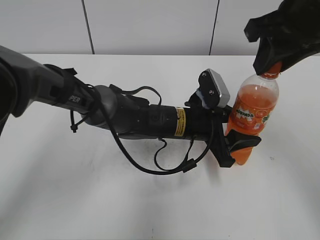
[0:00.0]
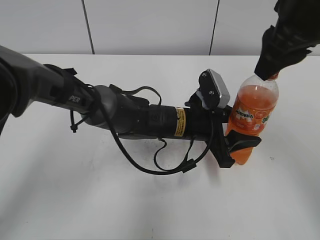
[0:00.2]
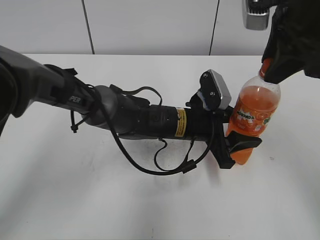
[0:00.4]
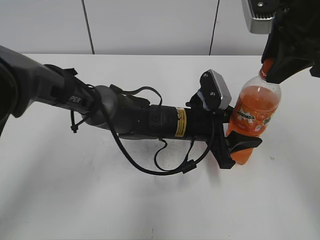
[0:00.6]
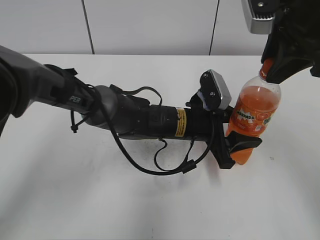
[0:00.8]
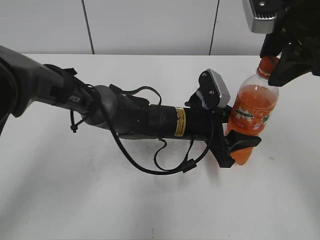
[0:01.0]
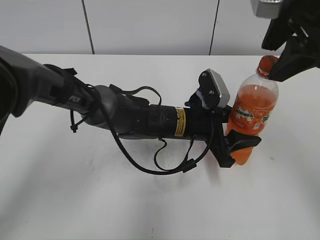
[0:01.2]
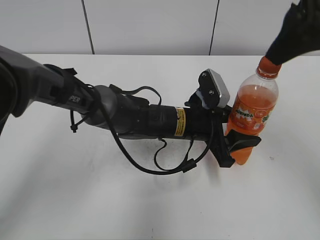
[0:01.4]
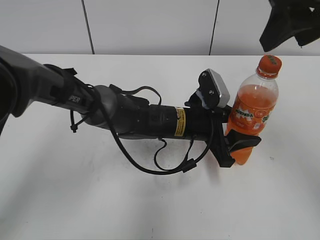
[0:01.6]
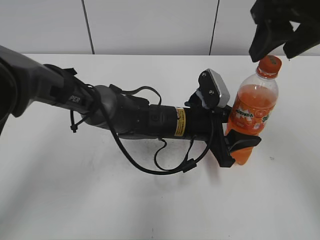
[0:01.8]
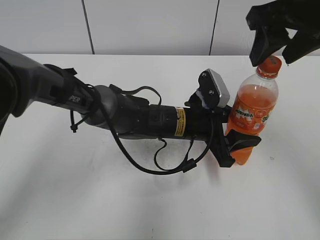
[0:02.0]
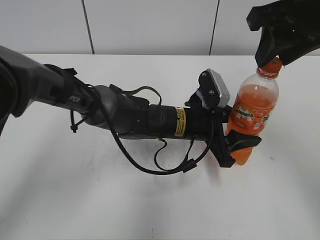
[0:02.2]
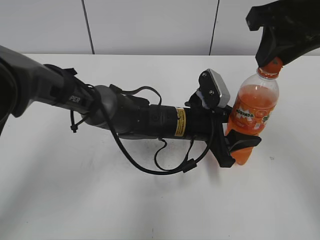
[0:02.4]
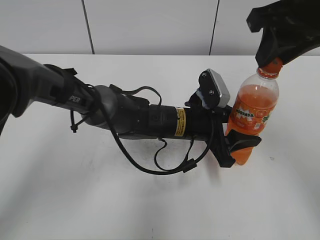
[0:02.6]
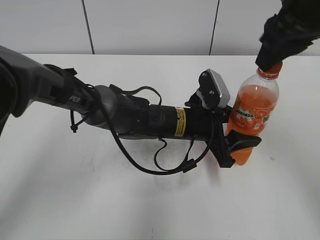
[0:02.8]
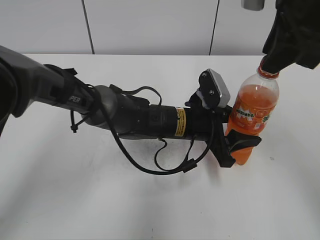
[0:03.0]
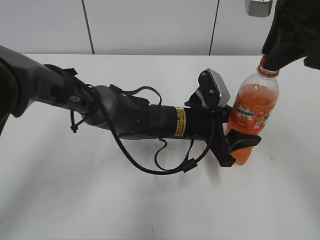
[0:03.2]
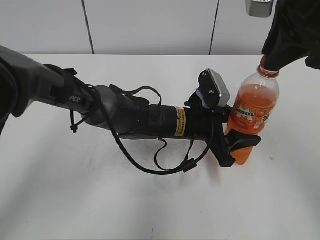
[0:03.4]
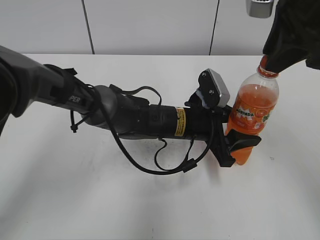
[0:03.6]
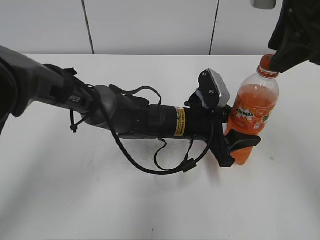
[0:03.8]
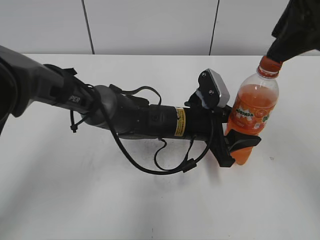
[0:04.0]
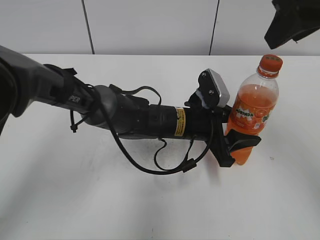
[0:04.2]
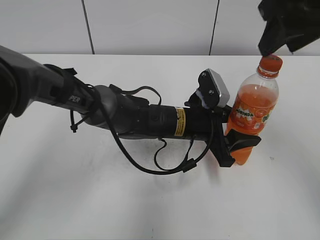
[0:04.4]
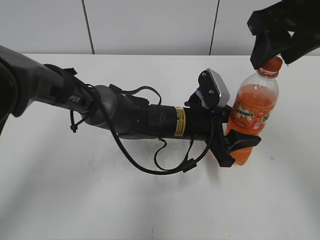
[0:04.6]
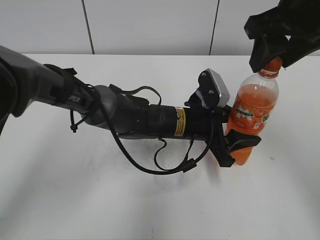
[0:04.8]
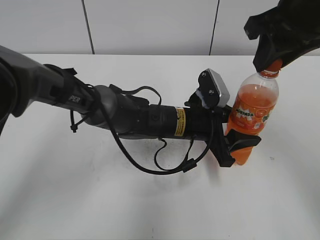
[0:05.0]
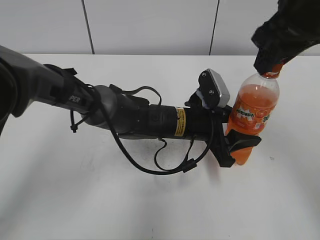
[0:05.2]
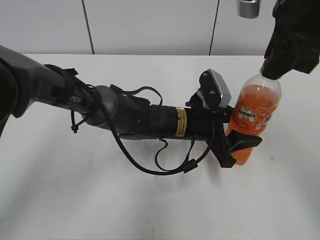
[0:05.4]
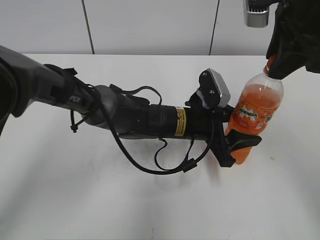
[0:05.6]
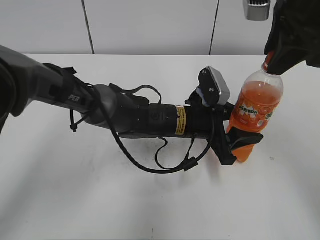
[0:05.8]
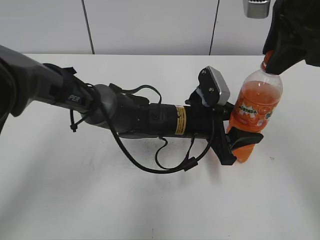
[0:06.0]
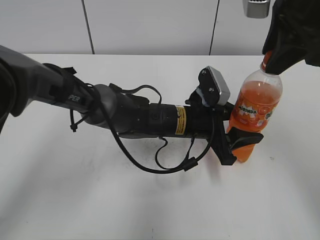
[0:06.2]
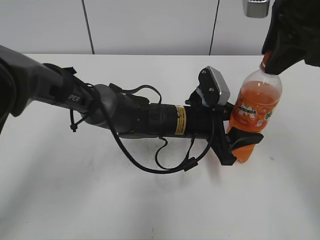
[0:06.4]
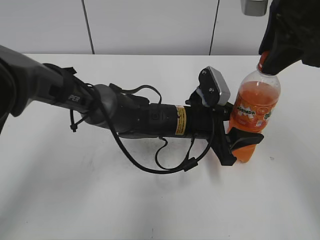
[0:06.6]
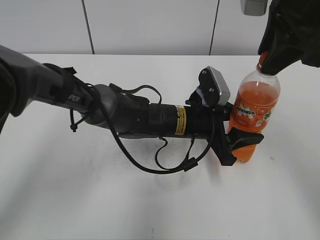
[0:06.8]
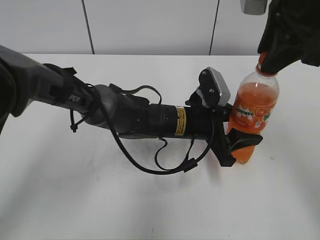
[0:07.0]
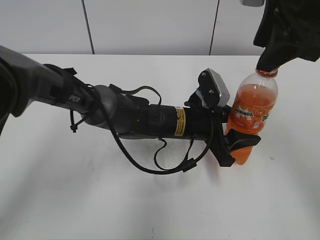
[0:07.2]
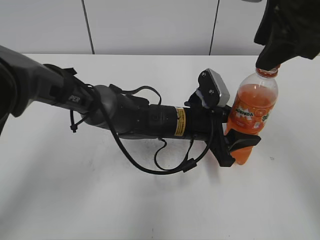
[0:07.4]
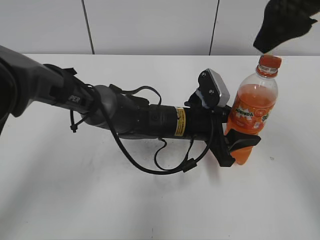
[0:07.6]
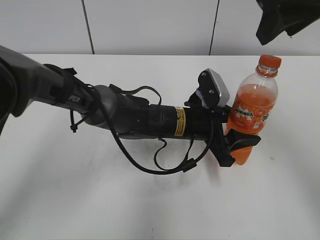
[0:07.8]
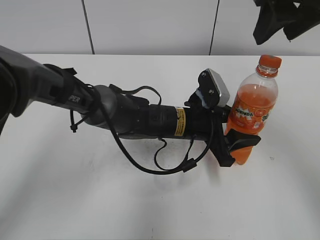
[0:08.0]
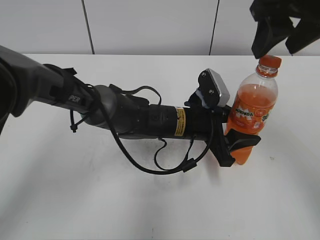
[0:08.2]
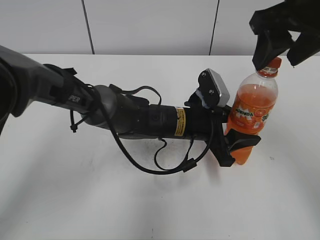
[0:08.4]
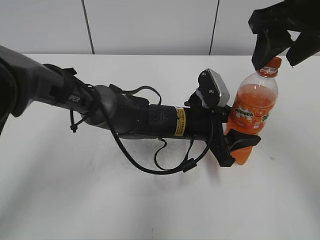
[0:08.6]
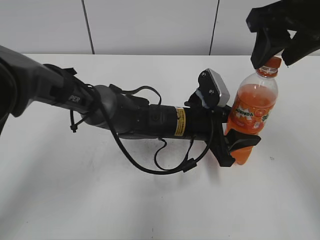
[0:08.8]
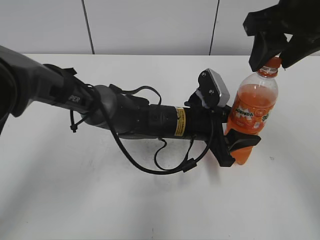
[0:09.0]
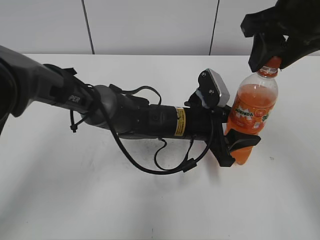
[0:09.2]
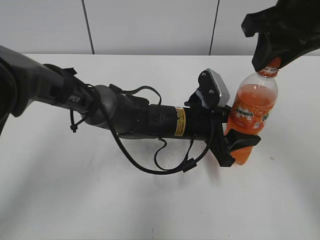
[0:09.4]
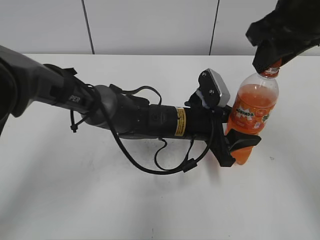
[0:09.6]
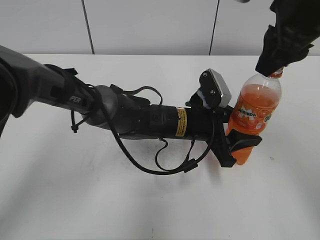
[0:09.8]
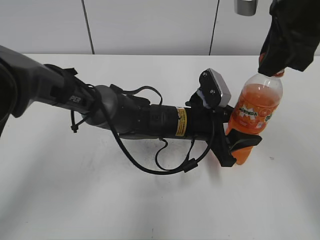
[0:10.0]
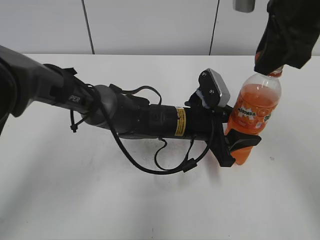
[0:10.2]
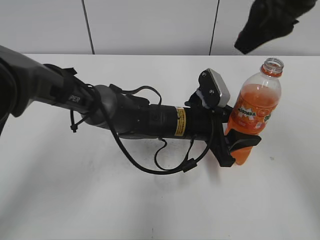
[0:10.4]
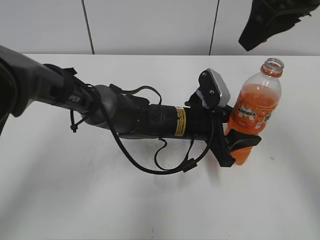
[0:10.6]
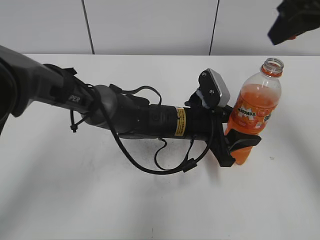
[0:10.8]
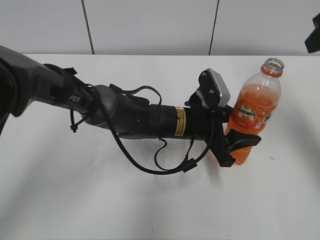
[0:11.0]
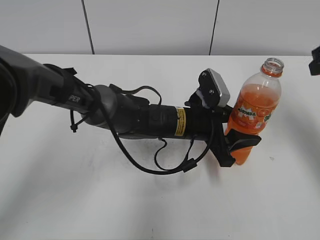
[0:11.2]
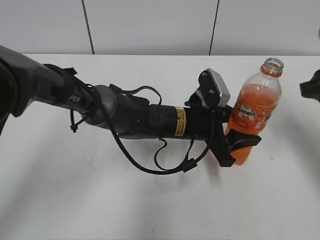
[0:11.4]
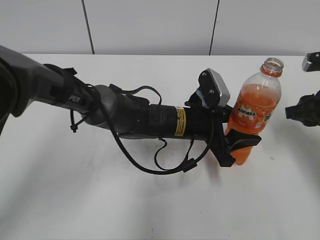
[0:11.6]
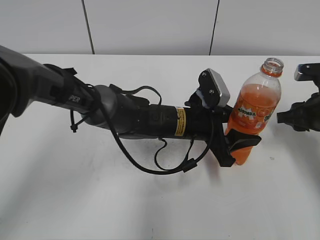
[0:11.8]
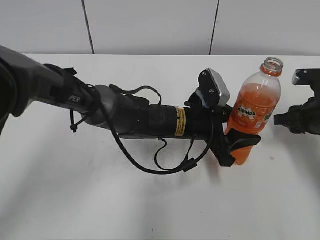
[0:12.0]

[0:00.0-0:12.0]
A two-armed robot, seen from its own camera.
0:00.0 to 0:01.6: The right gripper changes place by roughly 5 cm, and opens.
0:01.6 to 0:03.0: The right gripper closes up.
0:03.0 to 0:04.4: The right gripper opens up.
0:06.0 to 0:07.6: The right gripper opens.
0:09.0 to 0:10.4: The right gripper closes its fingers.
0:10.4 to 0:12.0: The right gripper heads downward and to the right, covering about 30 cm.

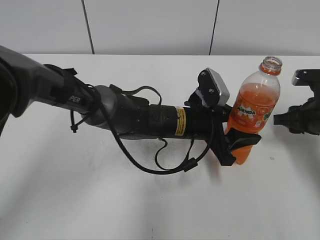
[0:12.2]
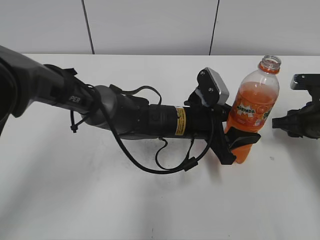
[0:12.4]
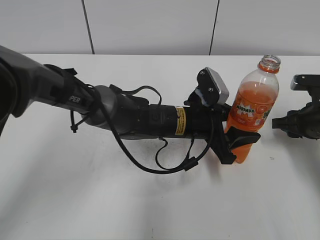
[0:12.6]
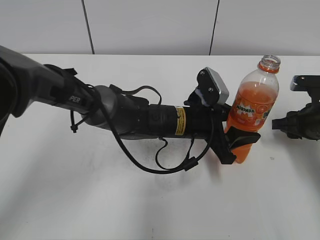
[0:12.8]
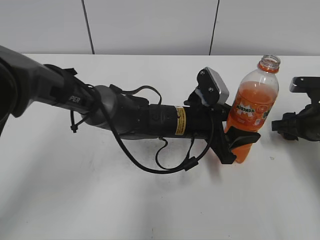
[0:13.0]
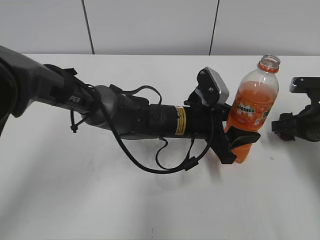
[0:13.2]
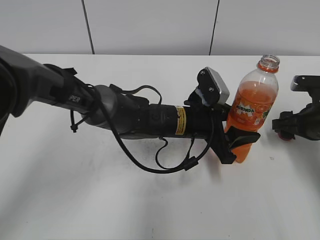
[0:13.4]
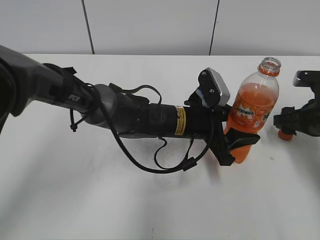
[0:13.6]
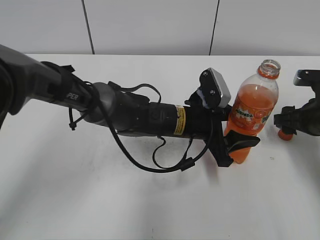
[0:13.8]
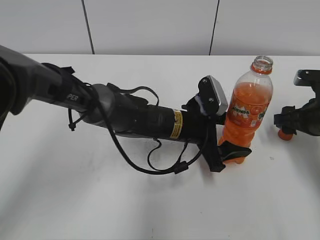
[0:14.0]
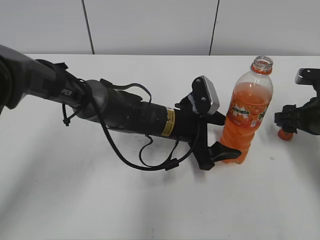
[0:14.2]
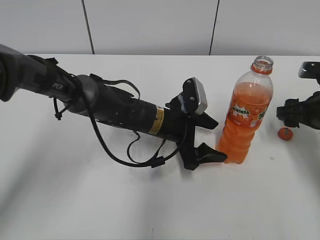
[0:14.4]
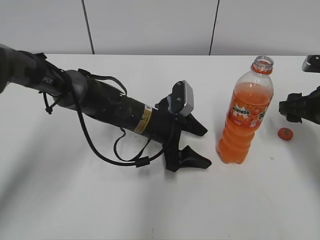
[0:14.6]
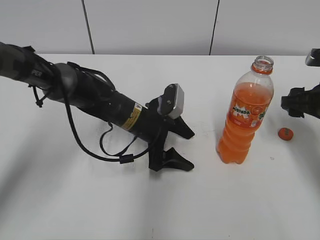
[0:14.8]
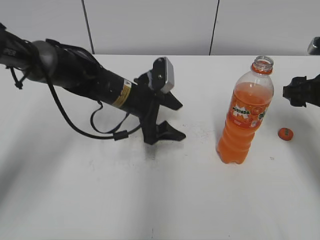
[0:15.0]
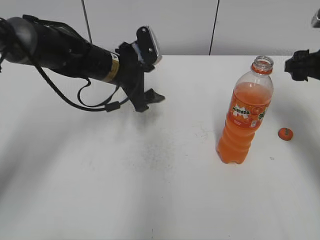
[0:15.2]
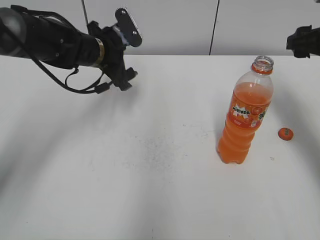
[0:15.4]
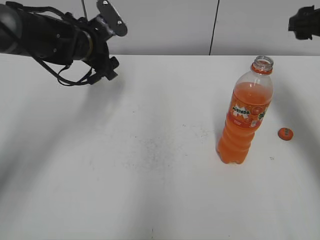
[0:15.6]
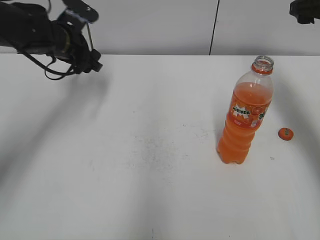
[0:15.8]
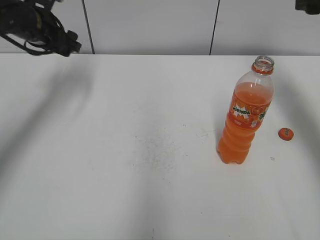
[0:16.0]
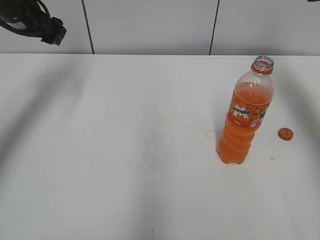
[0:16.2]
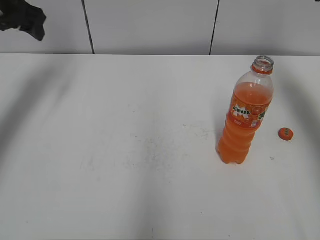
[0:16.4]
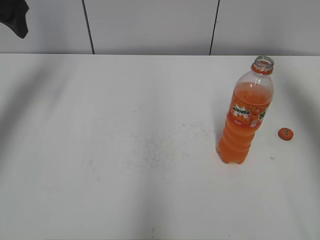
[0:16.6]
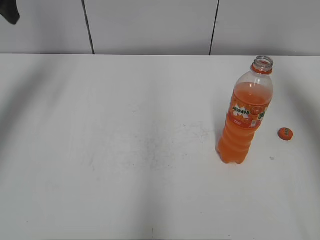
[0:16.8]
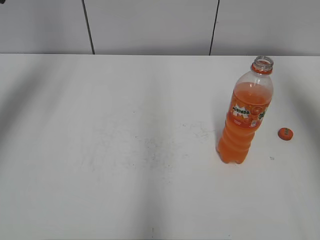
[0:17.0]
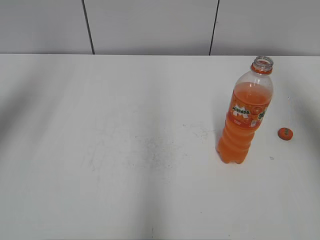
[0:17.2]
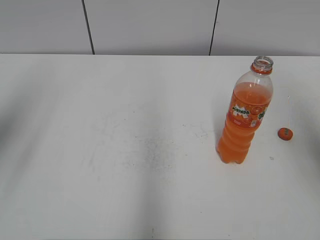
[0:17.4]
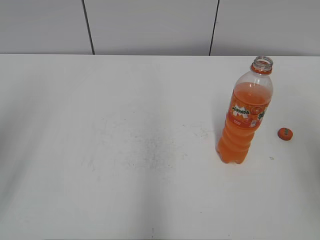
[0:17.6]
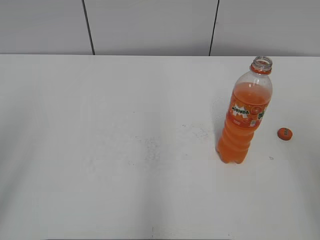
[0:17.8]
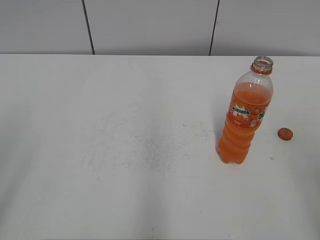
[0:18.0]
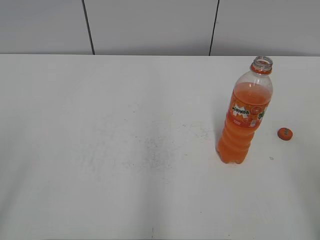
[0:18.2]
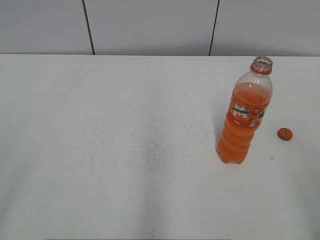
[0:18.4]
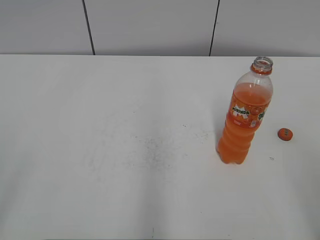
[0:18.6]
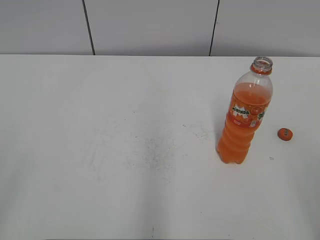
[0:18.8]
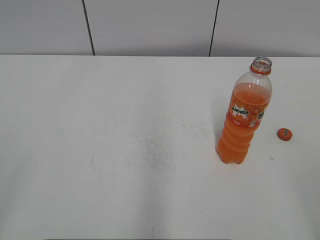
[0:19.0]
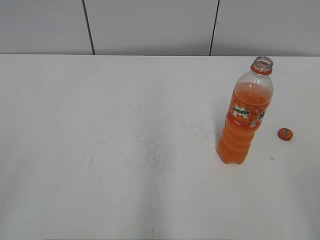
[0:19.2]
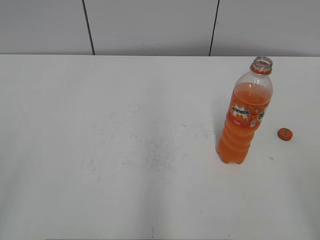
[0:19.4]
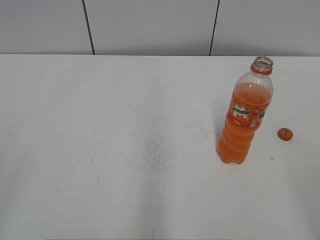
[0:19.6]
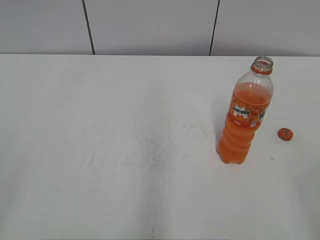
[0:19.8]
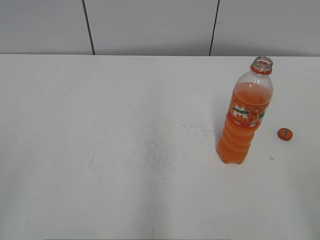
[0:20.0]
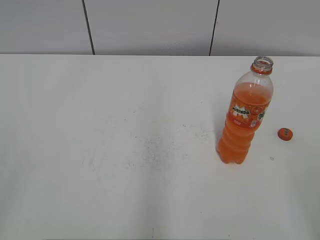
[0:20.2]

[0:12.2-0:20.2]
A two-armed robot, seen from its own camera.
Step, 0:13.6 to 0:13.8: Place the Mirinda with the left hand.
0:12.2 to 0:13.8: The right gripper opens its fingers.
0:13.8 to 0:15.4: The left gripper is displaced to the left, forward and upward by approximately 20 cm, and opens; the right gripper travels upward by some 10 cm.
0:15.4 to 0:17.0: The right gripper travels upward by about 20 cm, while the left gripper shifts roughly 30 cm upward and to the left.
0:17.0 to 0:18.6: The left gripper travels backward by about 40 cm. The right gripper heads backward and downward, covering about 30 cm.
